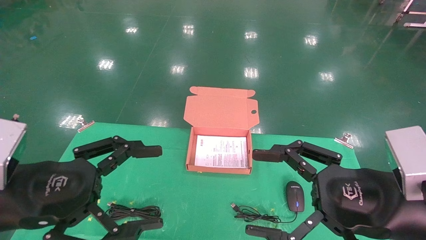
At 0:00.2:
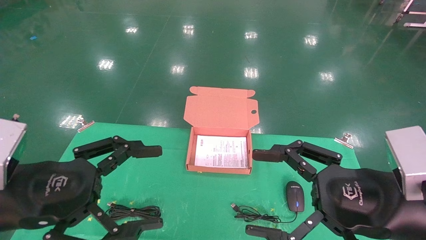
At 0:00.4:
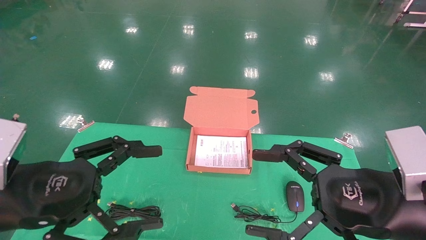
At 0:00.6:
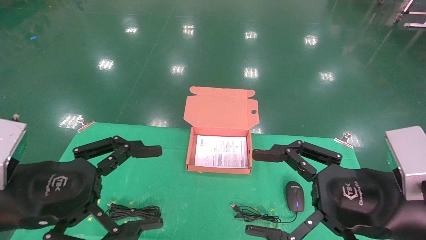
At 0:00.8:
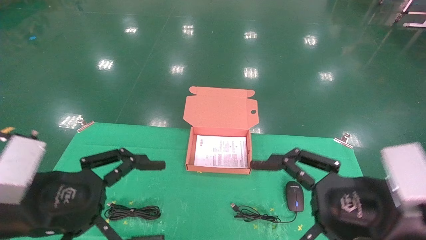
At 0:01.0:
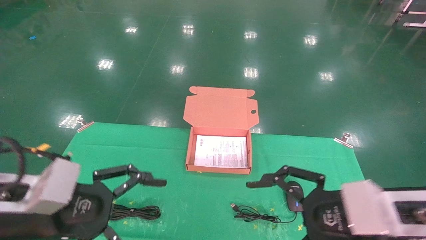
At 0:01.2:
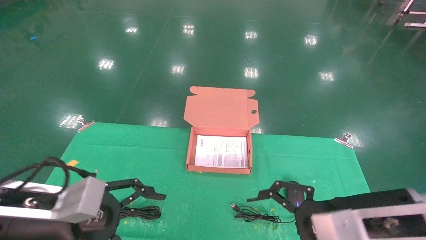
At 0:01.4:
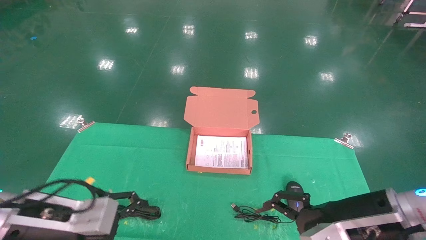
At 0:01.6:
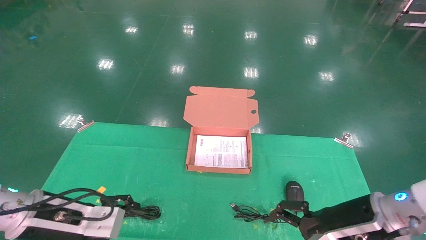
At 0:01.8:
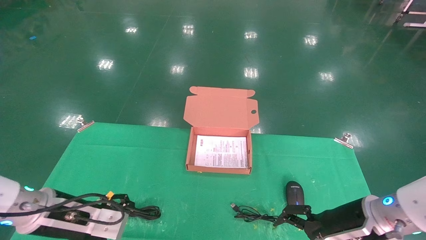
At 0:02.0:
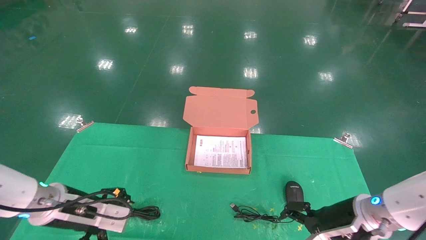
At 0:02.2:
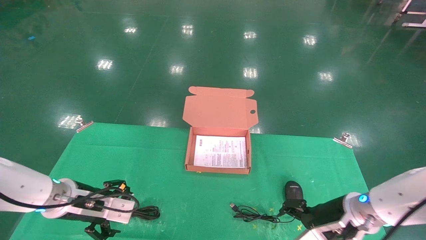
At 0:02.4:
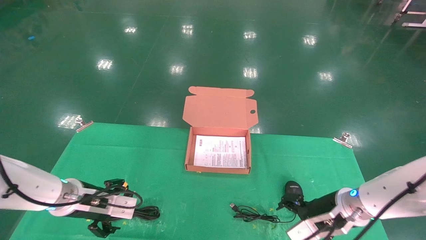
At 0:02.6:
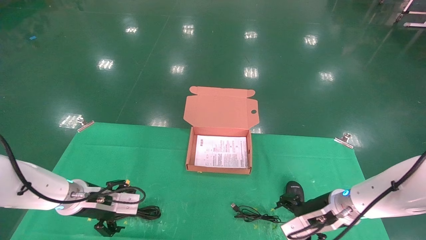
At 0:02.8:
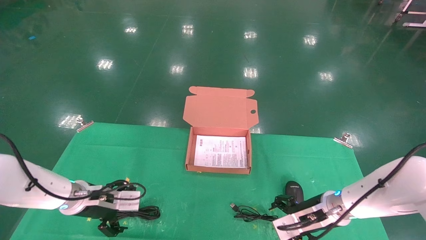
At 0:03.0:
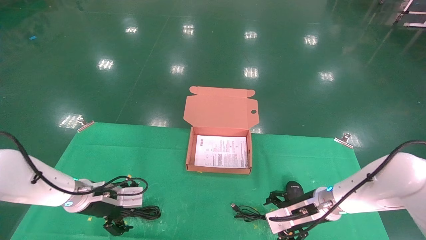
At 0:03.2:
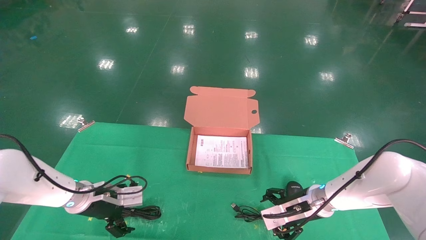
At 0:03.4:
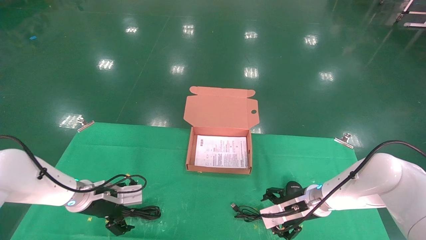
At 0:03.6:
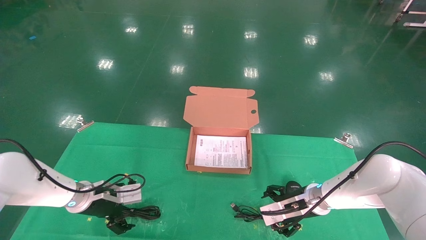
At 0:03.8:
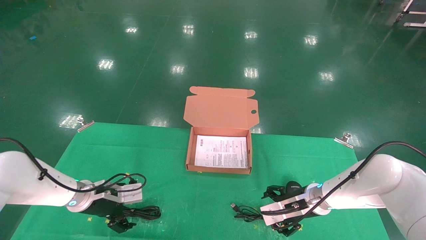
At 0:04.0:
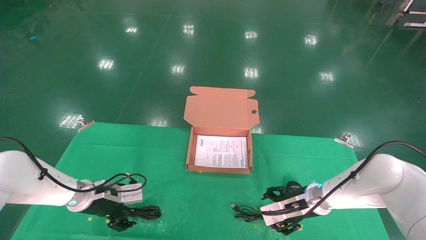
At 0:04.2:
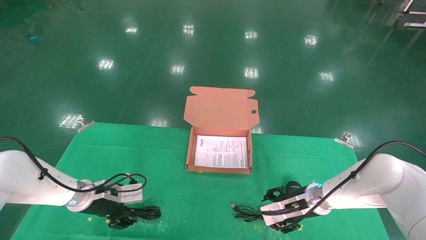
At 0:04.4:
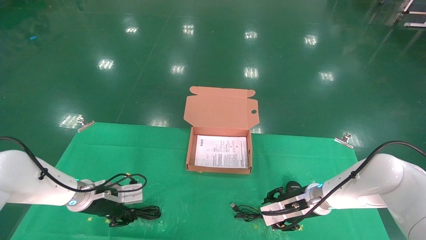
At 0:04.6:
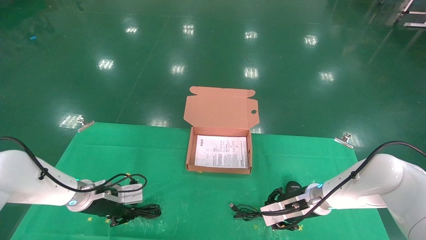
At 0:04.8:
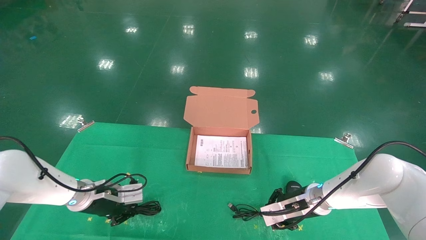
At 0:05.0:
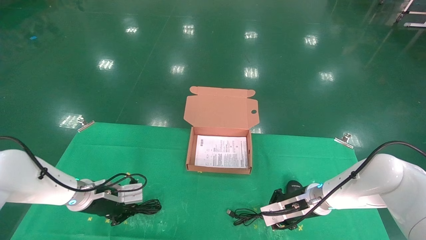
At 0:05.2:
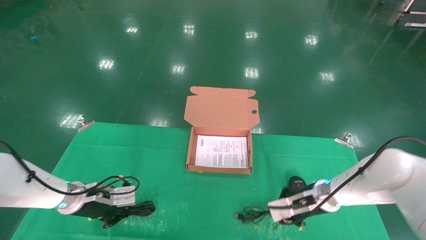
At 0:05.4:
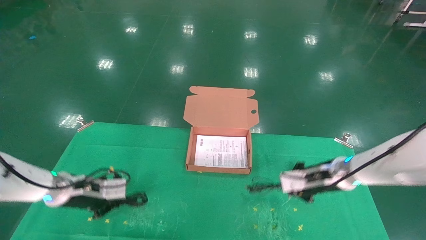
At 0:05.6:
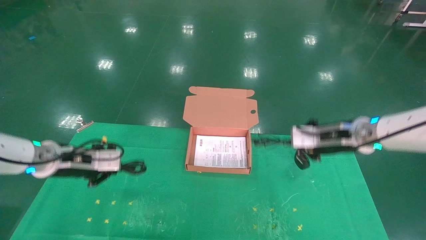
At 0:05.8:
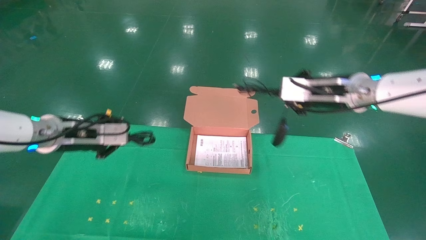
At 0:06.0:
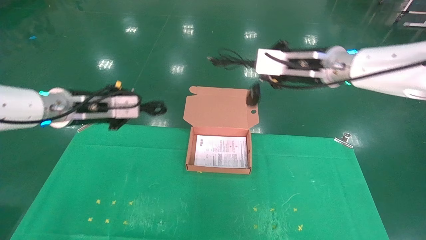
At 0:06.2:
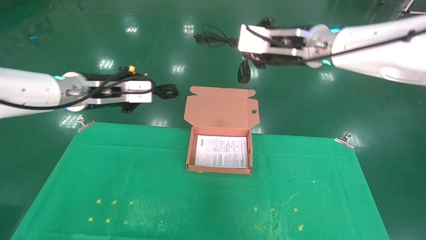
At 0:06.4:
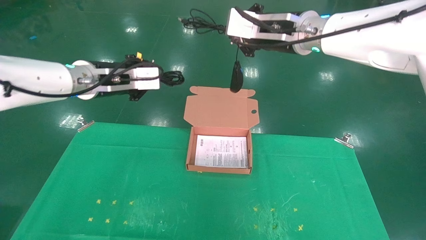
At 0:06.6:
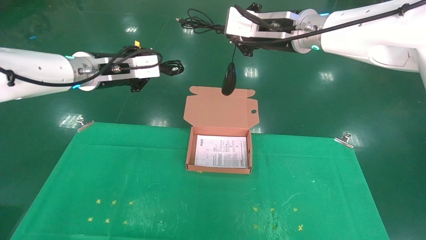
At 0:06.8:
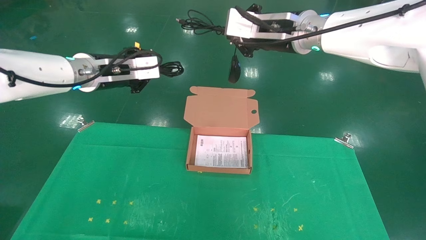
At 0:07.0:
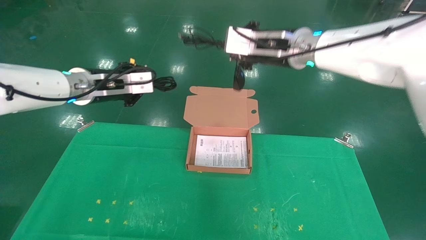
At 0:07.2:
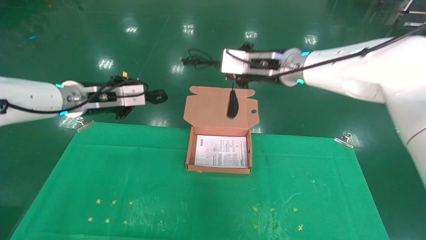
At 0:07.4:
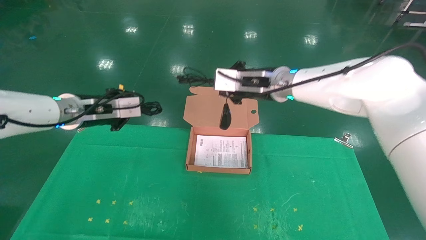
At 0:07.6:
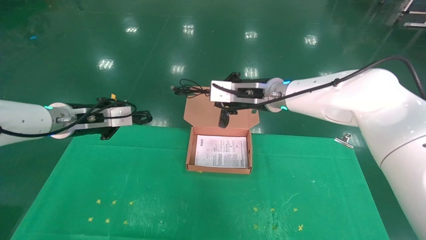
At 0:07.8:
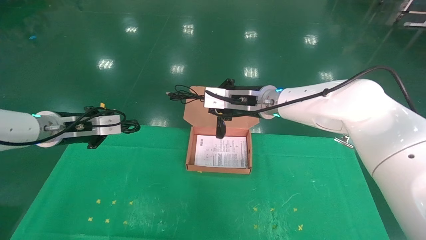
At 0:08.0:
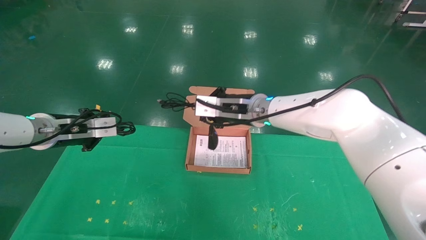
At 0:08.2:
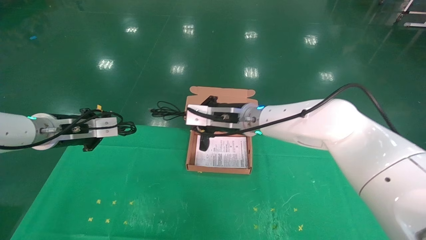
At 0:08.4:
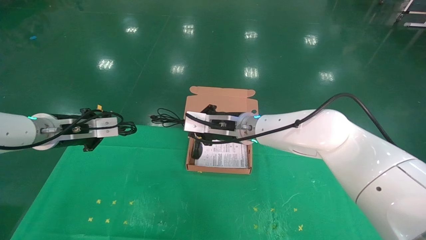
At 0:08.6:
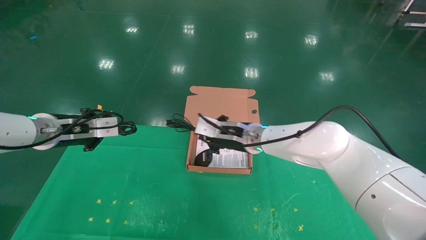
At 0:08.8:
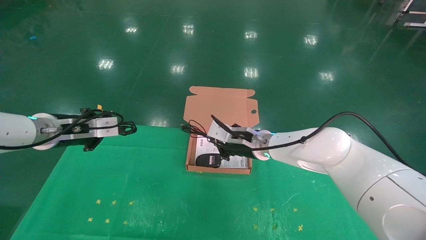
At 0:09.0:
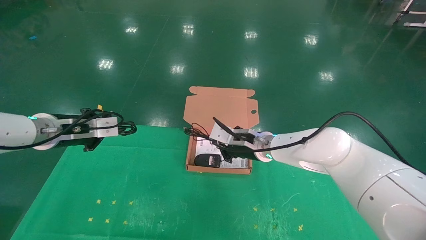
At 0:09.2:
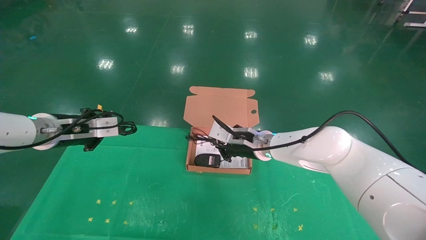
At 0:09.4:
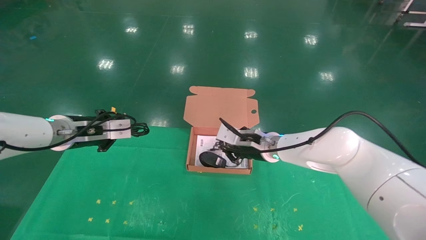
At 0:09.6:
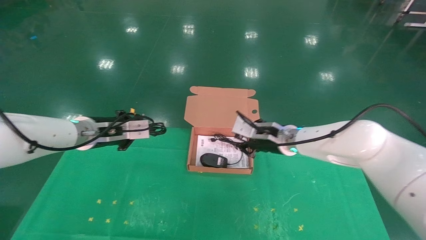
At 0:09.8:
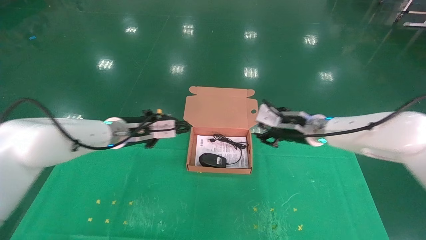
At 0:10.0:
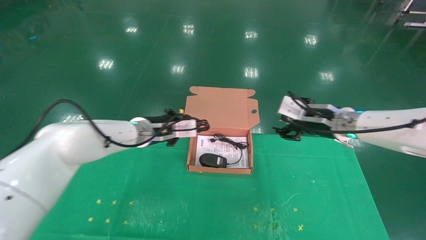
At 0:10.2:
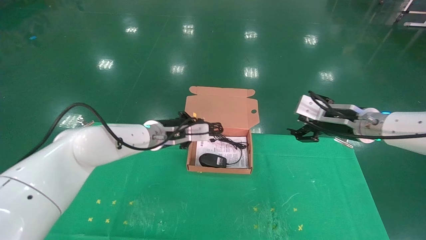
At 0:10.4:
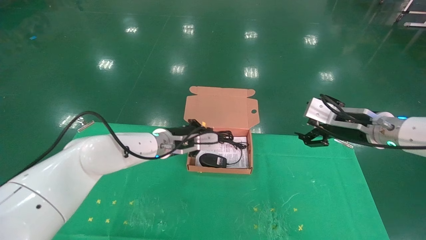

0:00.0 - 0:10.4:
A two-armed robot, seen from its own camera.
Task of the whole recording: grasp data cable left put into box grasp mouse right put into box.
Step, 0:01.2 - 0:05.8: Grab and pick up both the mouse and power cord from the accessory packaging area at the same time.
0:00.0 - 0:01.4: The right gripper is displaced forward and downward by some 10 cm, while the left gripper goes some 10 cm downward and forward.
0:01.4 - 0:03.0: The two grippers go some 15 cm forward and downward.
0:03.0 - 0:04.4: The grippers move only a little.
0:04.4 - 0:06.0: The two grippers go some 30 cm upward. The left gripper closes its fingers, while the right gripper closes up.
0:06.0 - 0:07.4: The right gripper shifts approximately 10 cm downward. The left gripper shifts some 10 cm downward and to the left.
0:07.4 - 0:09.0: The right gripper travels downward by approximately 15 cm.
0:09.0 - 0:10.4: The two grippers go approximately 20 cm to the right. The right gripper opens up.

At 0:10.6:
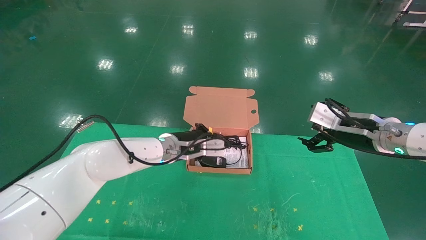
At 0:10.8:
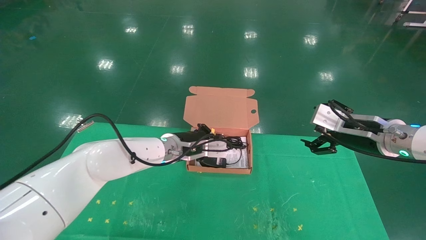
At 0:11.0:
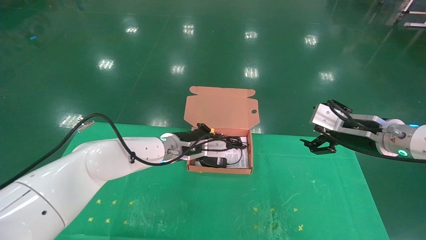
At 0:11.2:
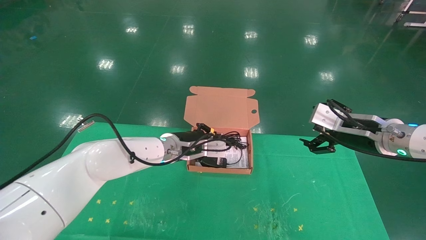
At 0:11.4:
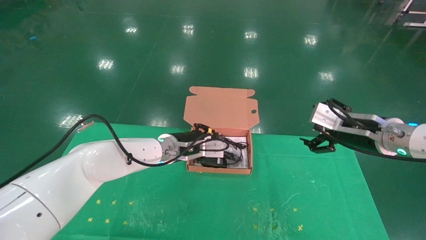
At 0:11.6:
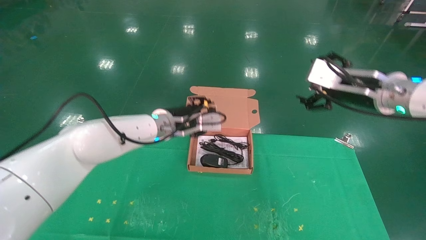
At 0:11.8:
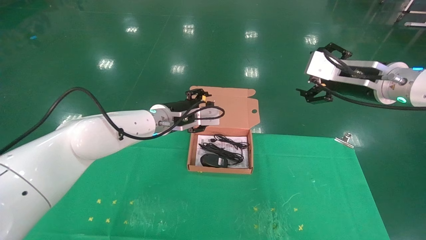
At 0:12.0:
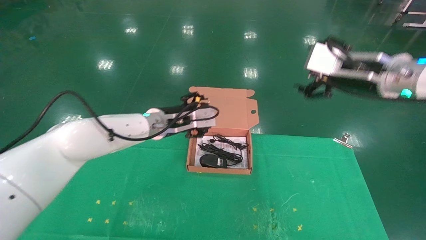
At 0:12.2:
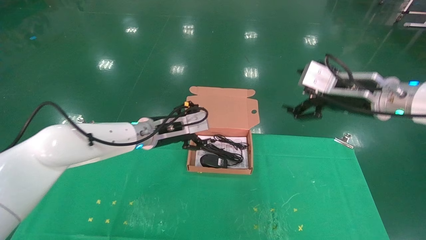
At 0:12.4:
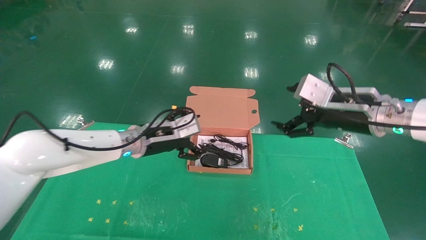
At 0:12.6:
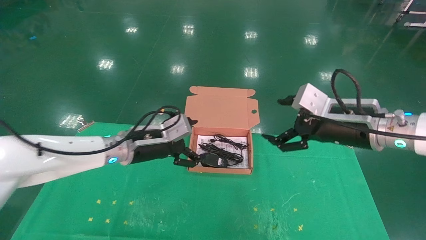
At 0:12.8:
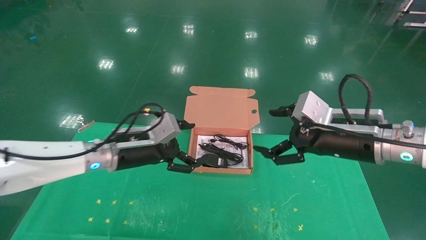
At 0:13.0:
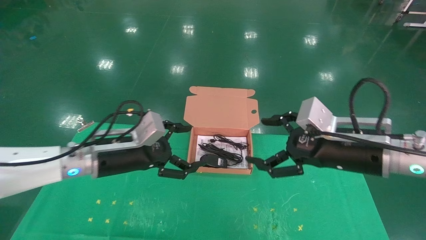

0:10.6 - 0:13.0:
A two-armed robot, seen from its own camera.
Task of the whole recording: grasp data cable left put into box grasp mouse right put into box.
0:10.6 - 0:11.8: The right gripper shifts approximately 10 cm upward. The left gripper heads upward, covering about 5 cm, and opens up.
0:11.8 - 0:13.0: The left gripper moves backward and to the left, approximately 15 cm, and opens. Meanwhile the right gripper is displaced downward and backward by some 10 cm.
